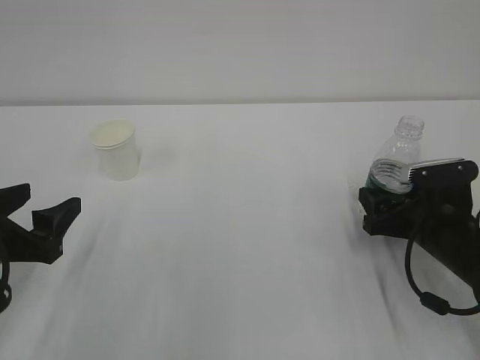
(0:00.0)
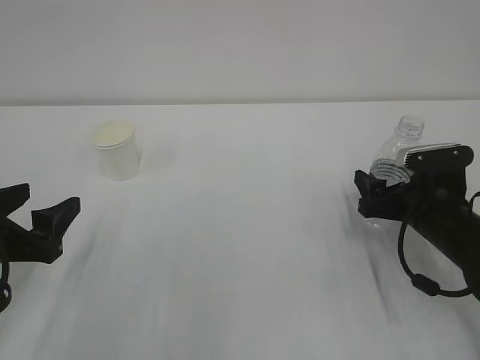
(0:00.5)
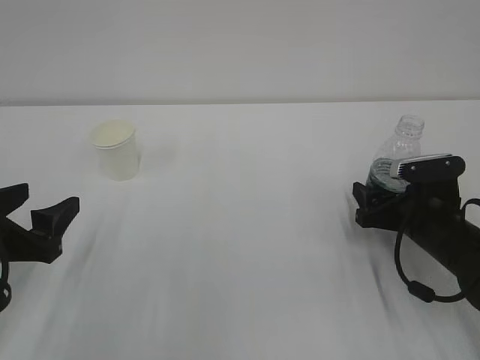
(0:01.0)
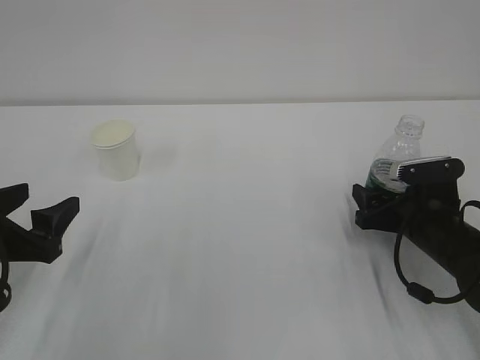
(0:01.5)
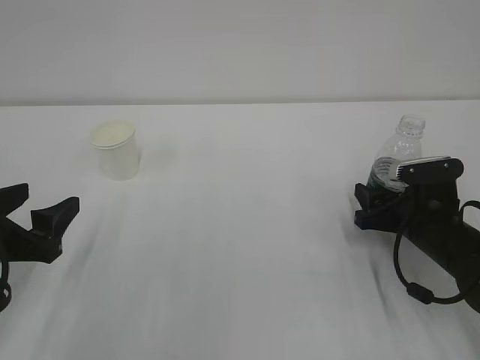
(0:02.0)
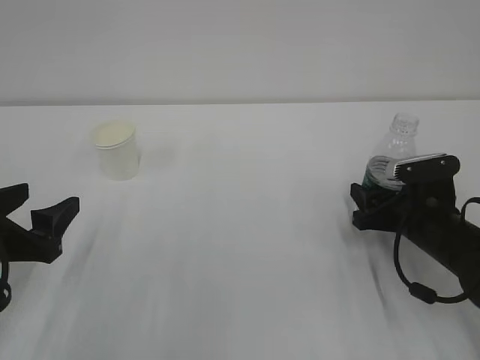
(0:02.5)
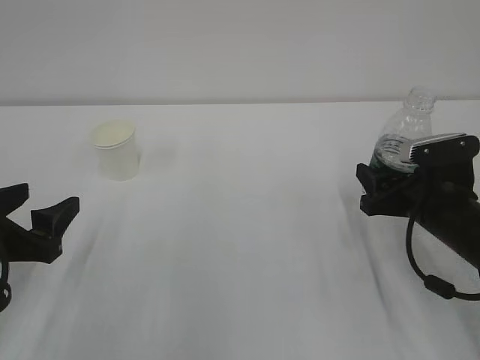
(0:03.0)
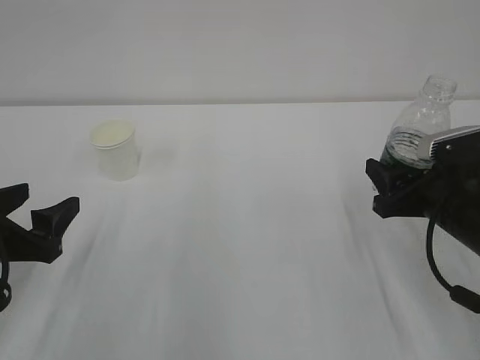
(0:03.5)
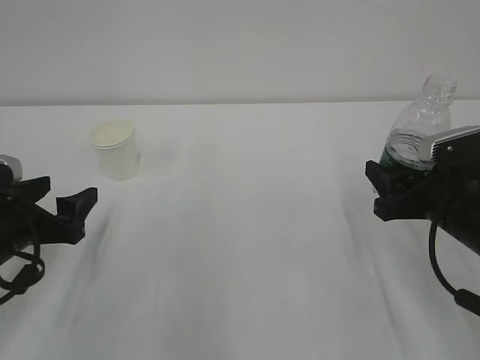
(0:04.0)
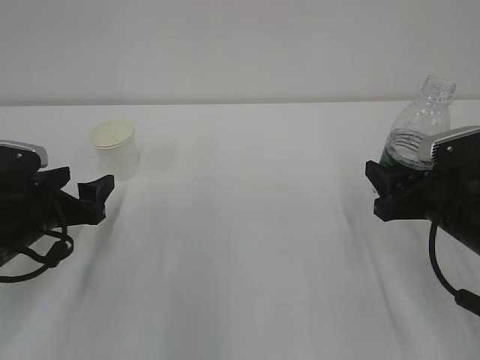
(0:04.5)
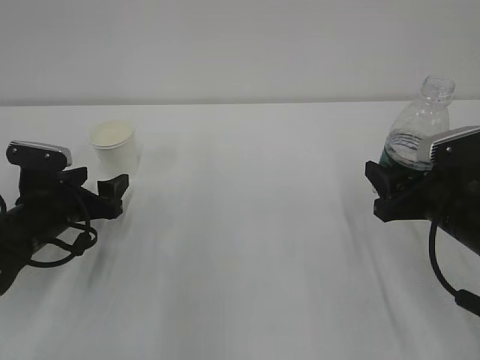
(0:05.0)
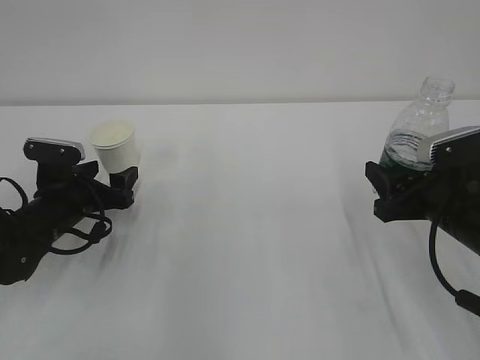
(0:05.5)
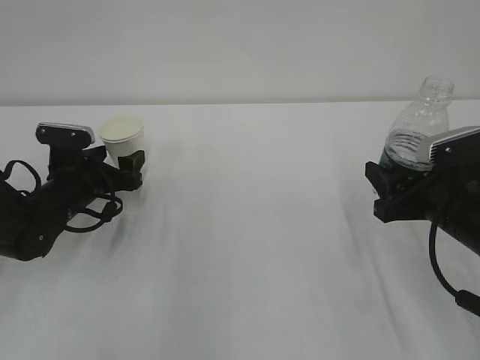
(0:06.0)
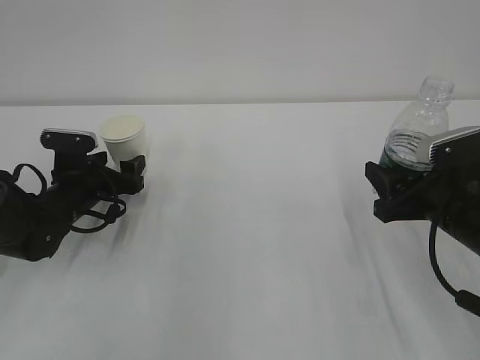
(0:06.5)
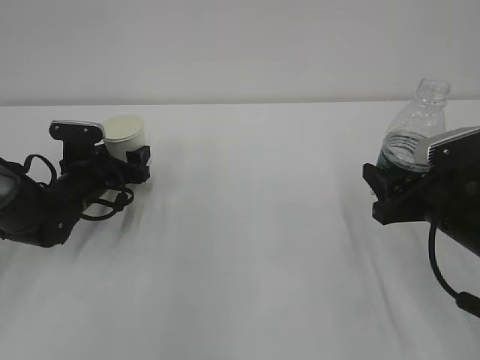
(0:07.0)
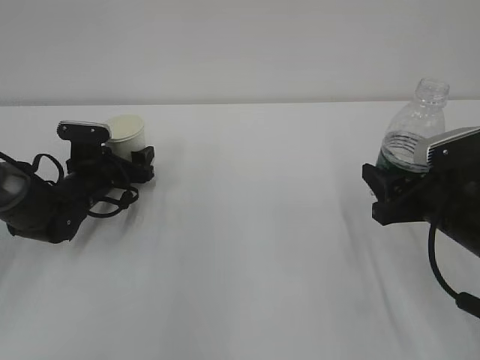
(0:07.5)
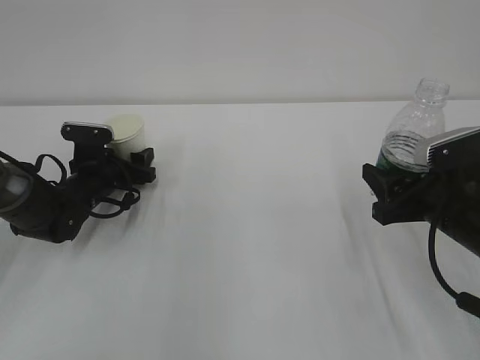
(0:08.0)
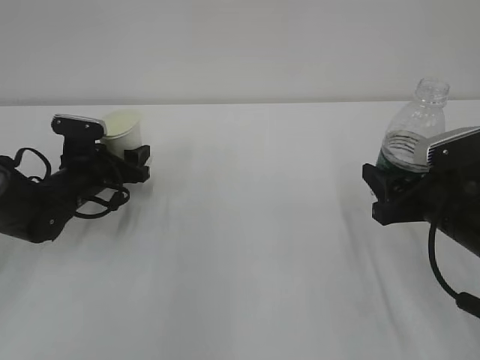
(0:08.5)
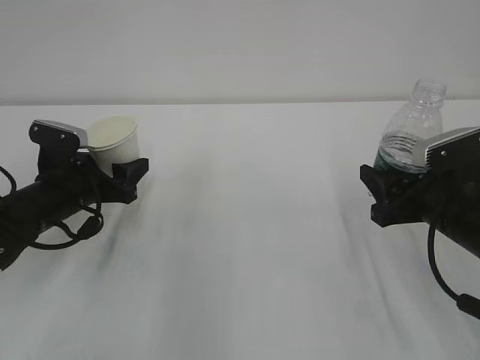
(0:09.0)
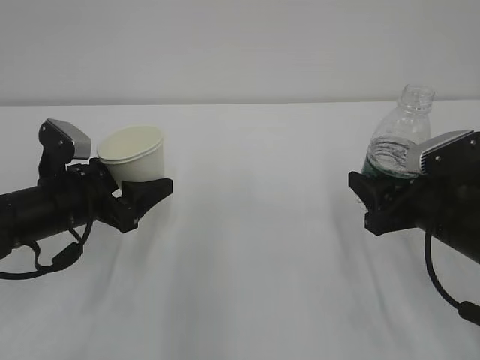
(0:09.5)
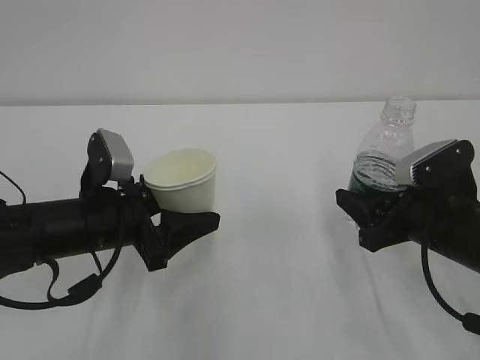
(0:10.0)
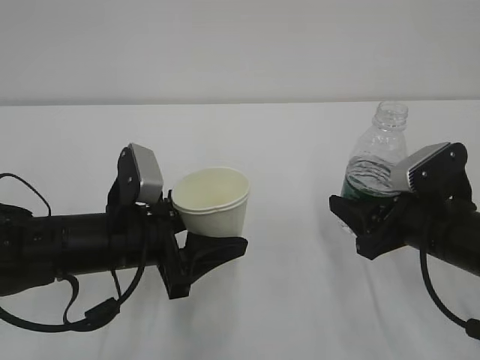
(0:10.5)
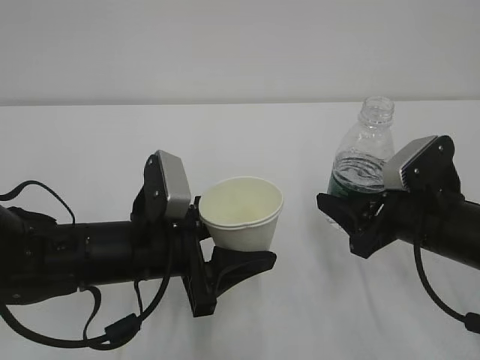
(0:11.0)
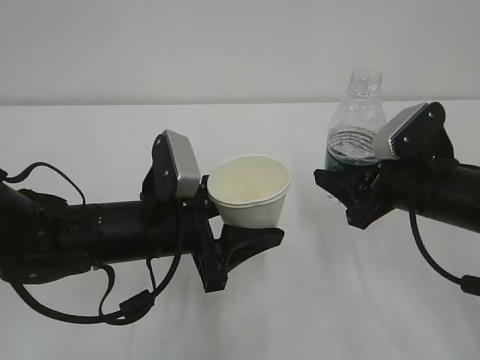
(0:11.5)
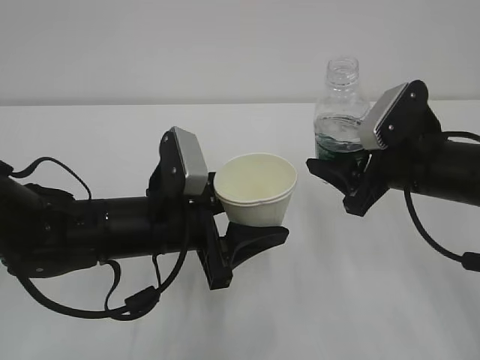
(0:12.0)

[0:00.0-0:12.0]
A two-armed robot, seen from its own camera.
0:00.0 to 0:02.0: The right gripper closes its fingers.
0:02.0 to 0:04.0: The right gripper is displaced upward by some 5 cm.
0:04.0 to 0:06.0: The left gripper is displaced forward and downward by approximately 15 cm.
0:06.0 to 0:08.0: The left gripper moves about 5 cm, and closes its fingers.
0:08.0 to 0:10.0: The left gripper heads backward, upward and to the right, covering approximately 20 cm.
0:10.0 to 0:12.0: The left gripper moves to the right, some 10 cm; the right gripper shifts roughly 5 cm upward.

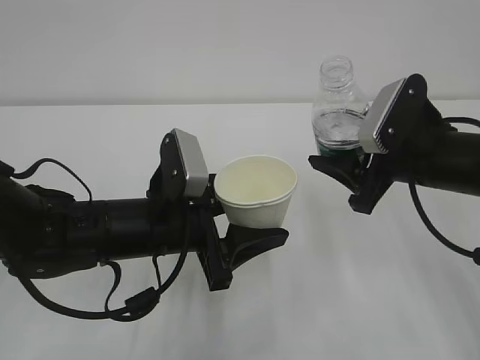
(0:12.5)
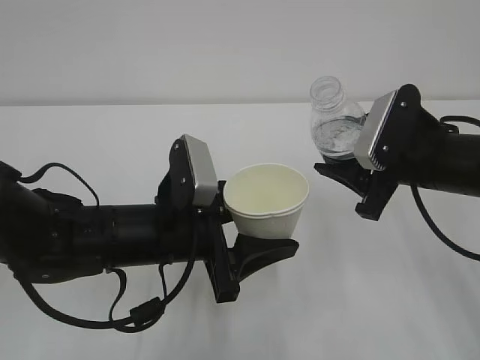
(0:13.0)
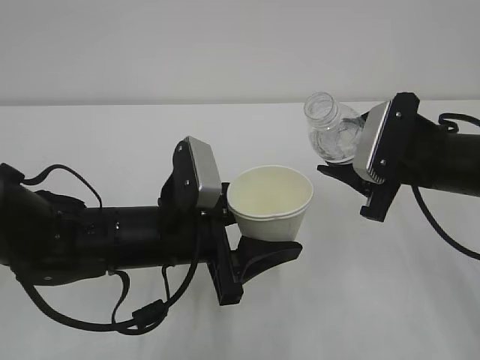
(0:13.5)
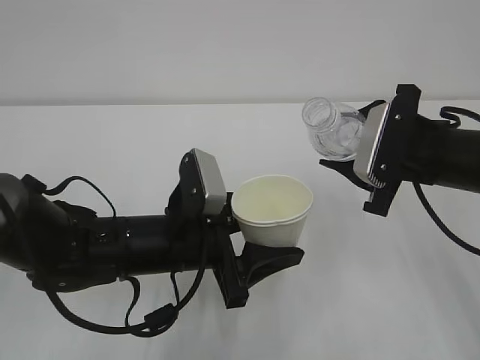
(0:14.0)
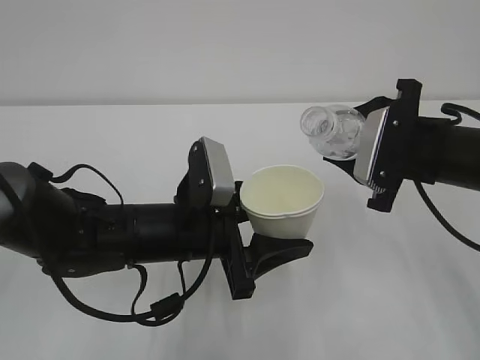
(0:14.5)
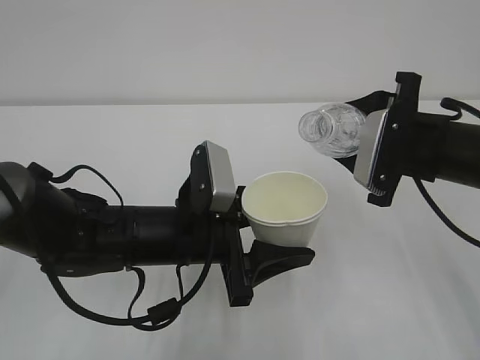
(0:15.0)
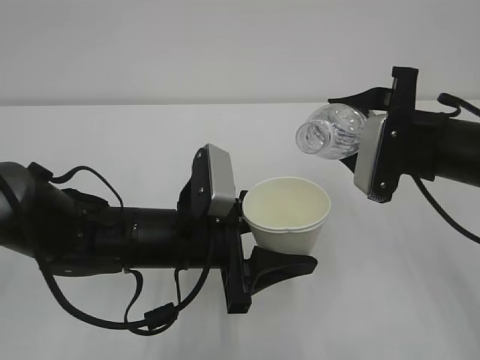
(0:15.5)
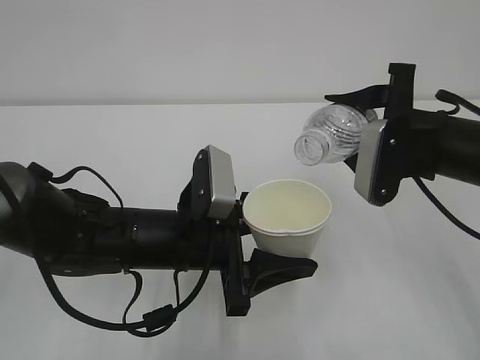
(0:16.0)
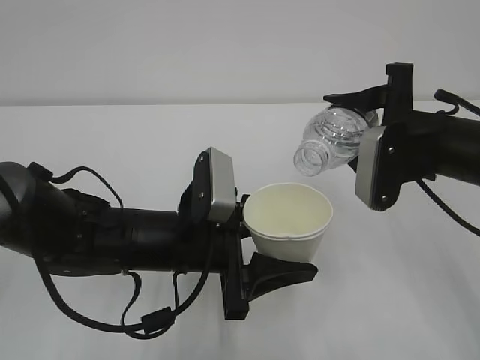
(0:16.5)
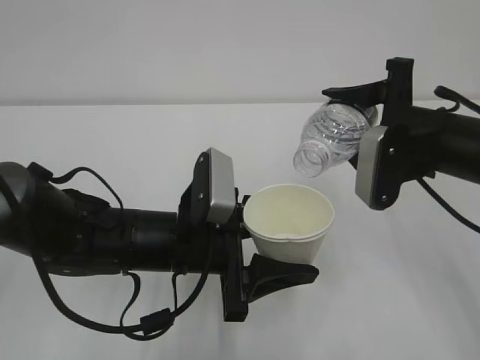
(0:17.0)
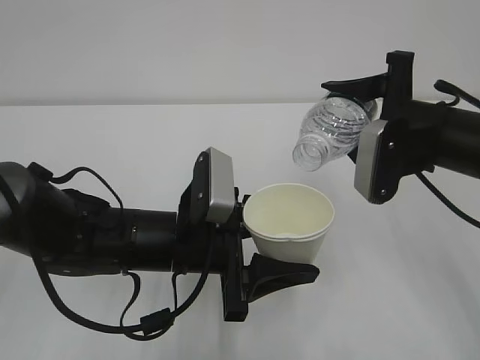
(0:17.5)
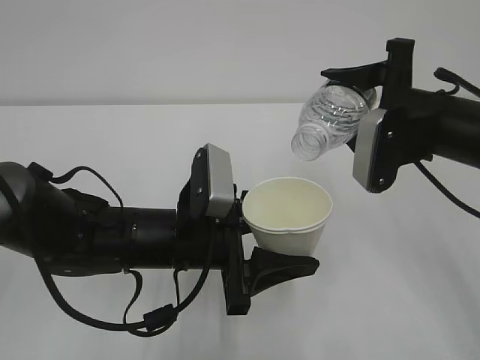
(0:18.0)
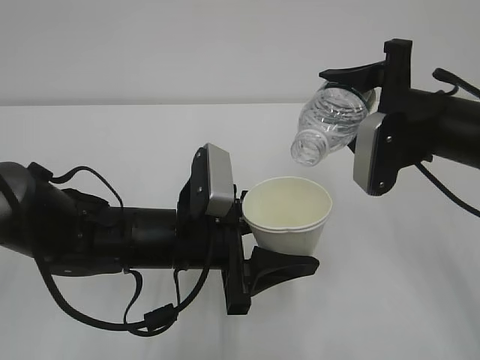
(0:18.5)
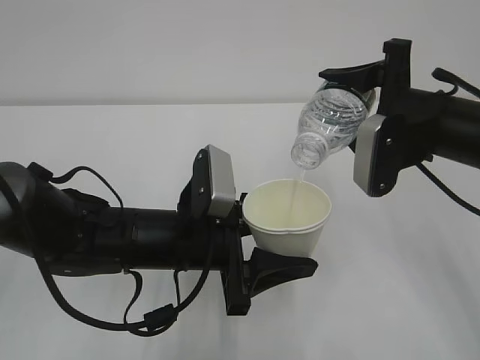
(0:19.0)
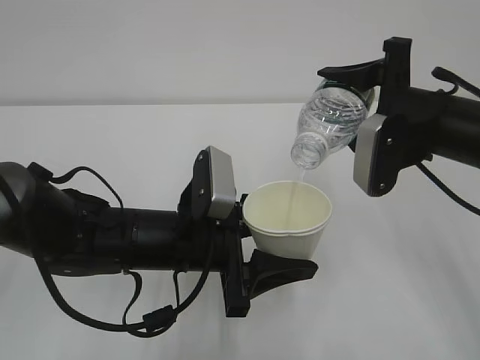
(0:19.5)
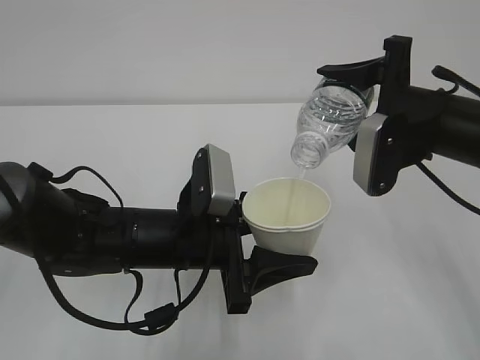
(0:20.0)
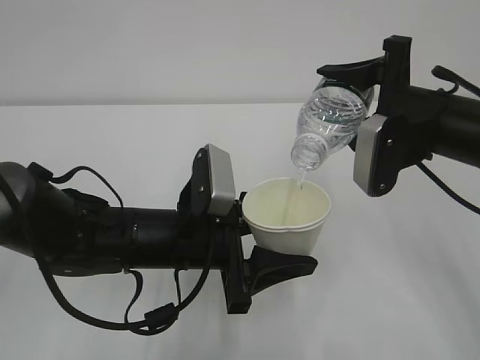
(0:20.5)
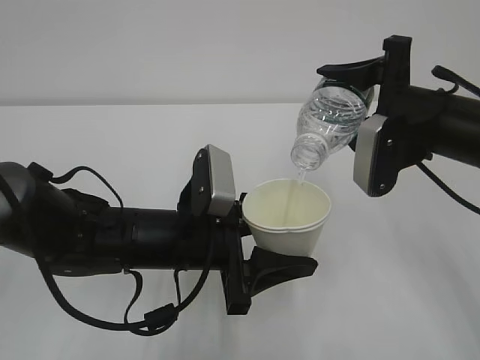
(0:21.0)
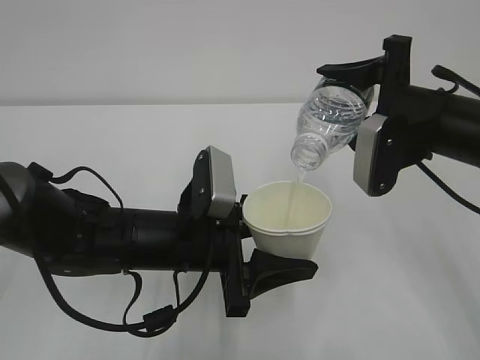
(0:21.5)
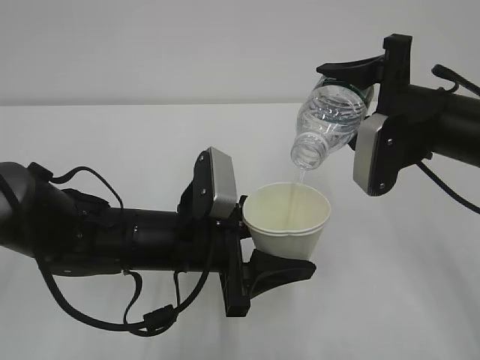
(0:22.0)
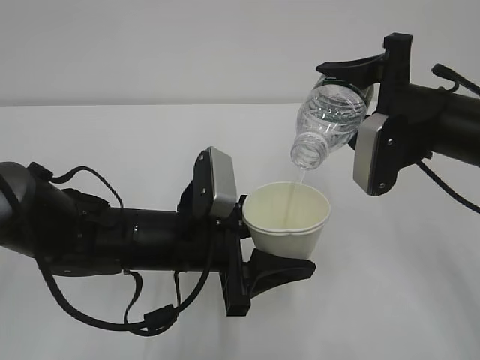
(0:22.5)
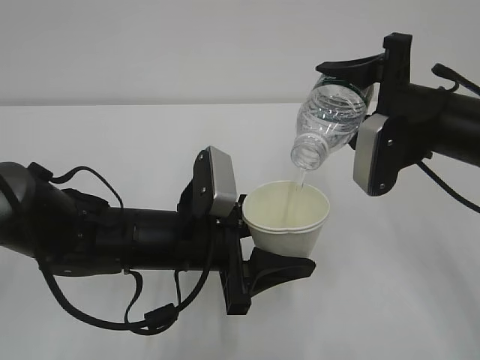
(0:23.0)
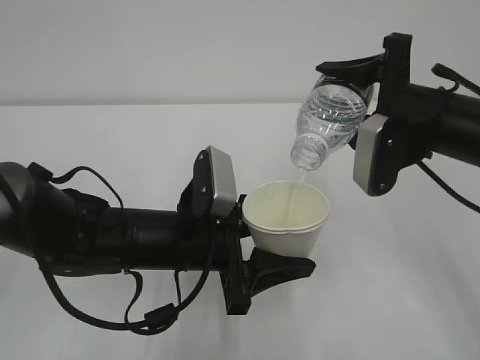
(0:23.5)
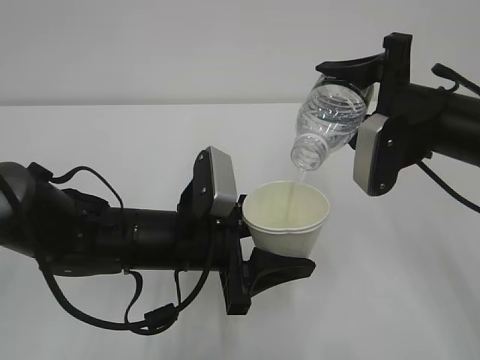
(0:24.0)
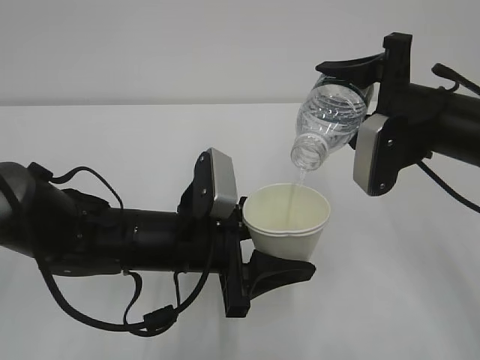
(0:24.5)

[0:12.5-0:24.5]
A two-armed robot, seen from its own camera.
0:16.5 to 0:18.5: The grippers make only small movements.
0:18.5 to 0:22.5: Both grippers stay put.
0:22.5 to 0:24.5: Neither gripper changes place.

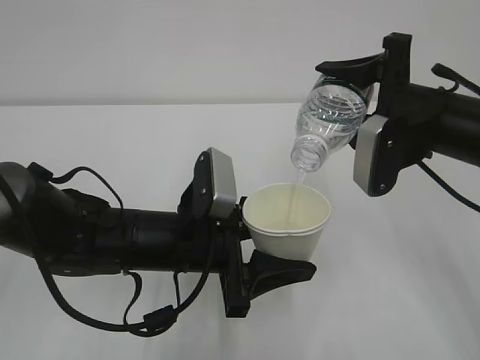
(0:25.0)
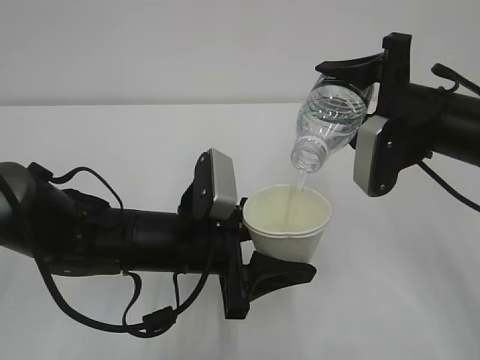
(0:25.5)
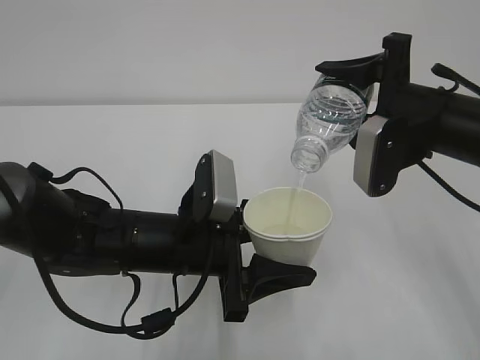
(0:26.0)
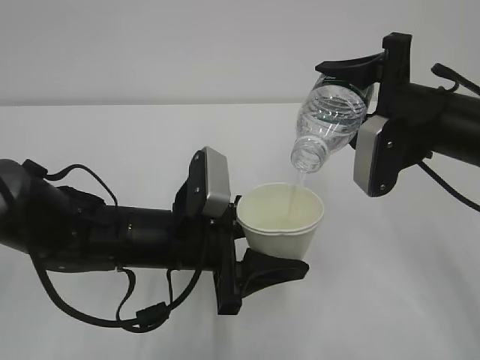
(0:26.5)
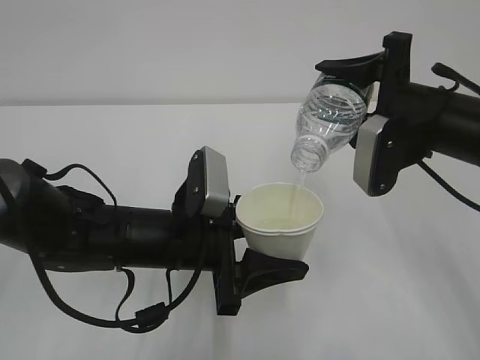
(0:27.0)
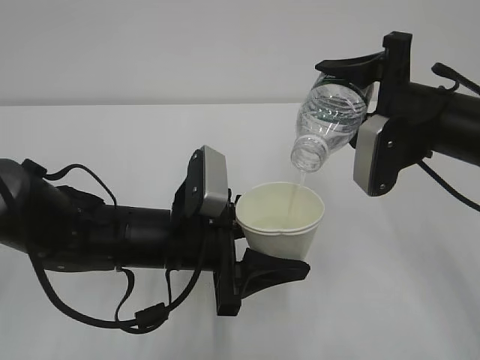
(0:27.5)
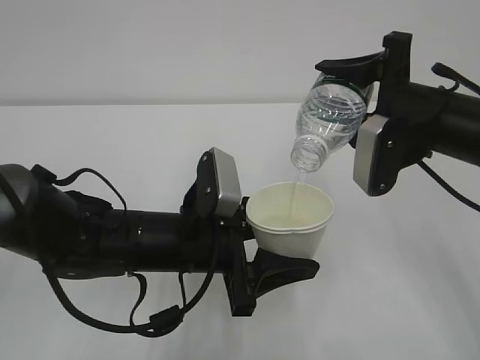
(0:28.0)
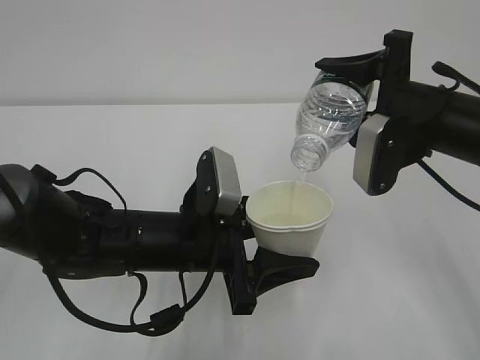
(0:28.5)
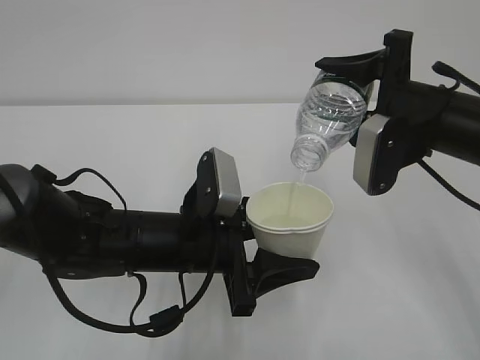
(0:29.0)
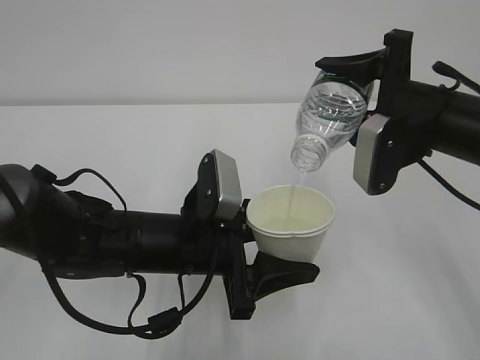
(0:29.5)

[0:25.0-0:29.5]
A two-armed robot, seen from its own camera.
0:25.0 to 0:27.0: Both grippers stay put.
0:27.0 to 0:29.5: Both grippers stay about where they are.
